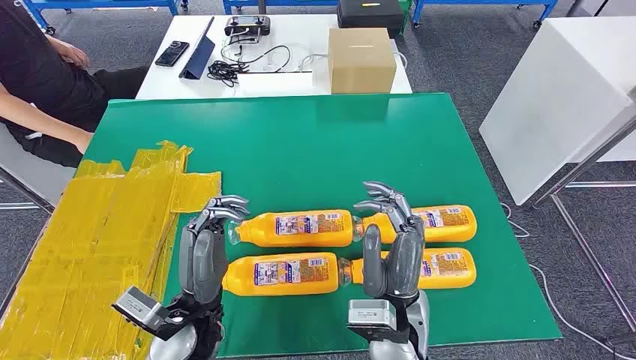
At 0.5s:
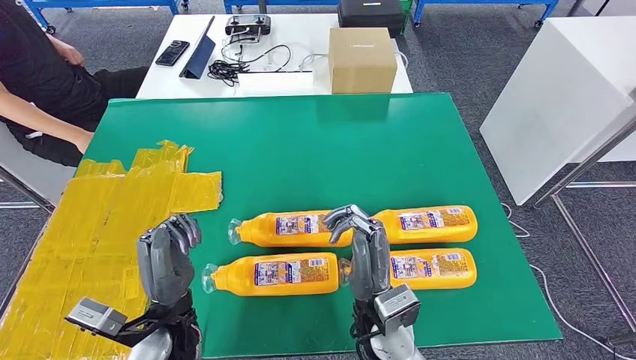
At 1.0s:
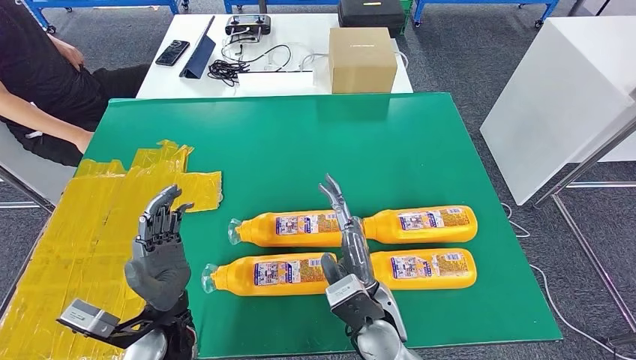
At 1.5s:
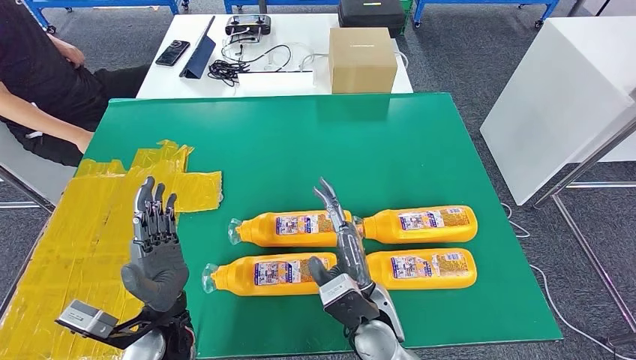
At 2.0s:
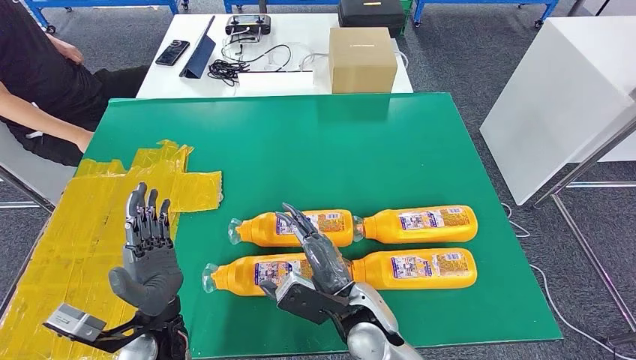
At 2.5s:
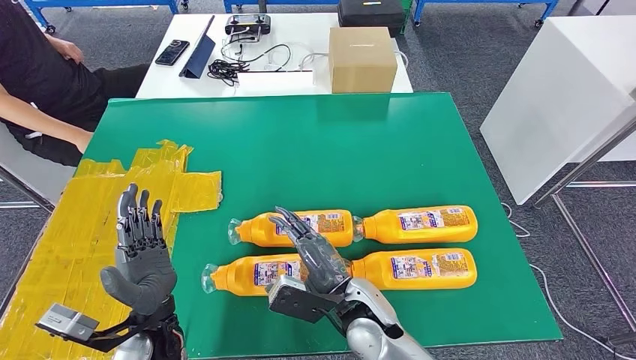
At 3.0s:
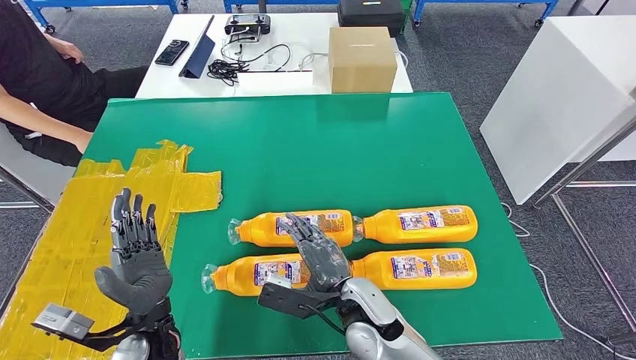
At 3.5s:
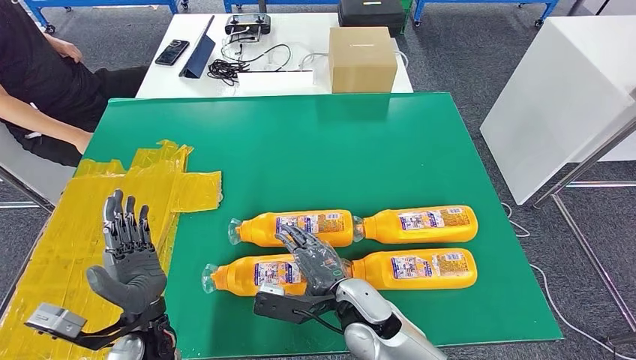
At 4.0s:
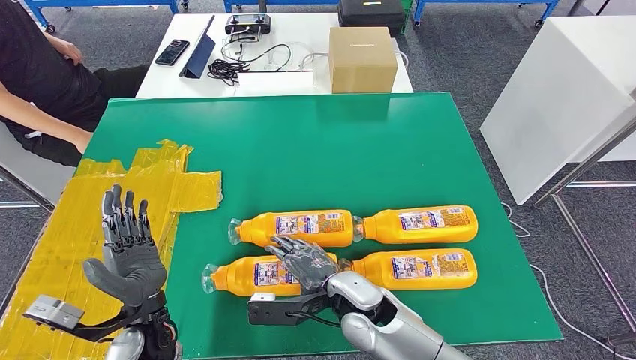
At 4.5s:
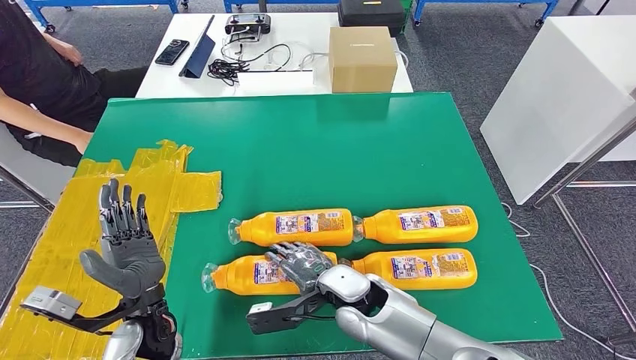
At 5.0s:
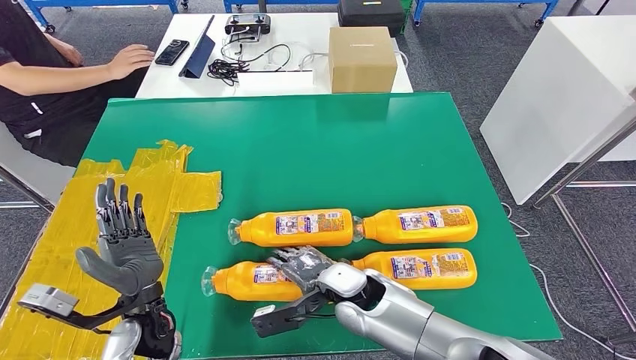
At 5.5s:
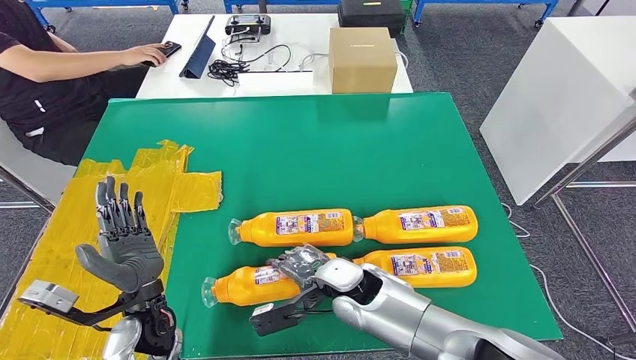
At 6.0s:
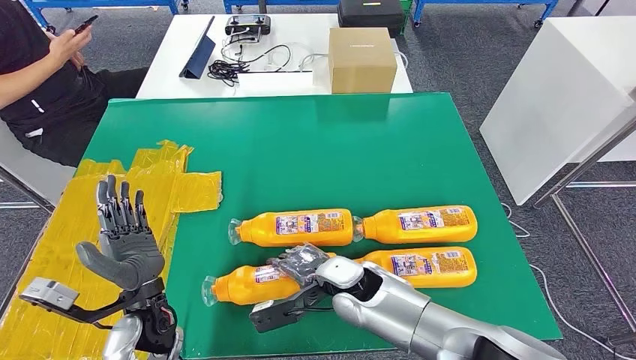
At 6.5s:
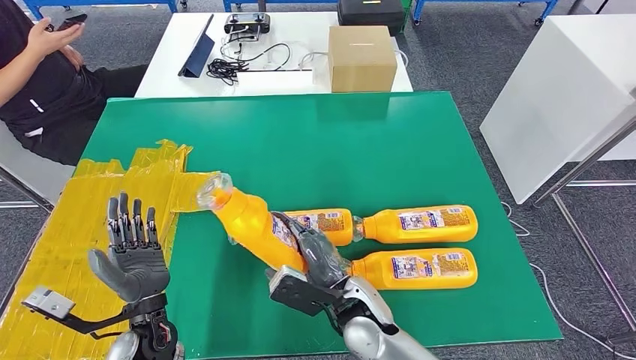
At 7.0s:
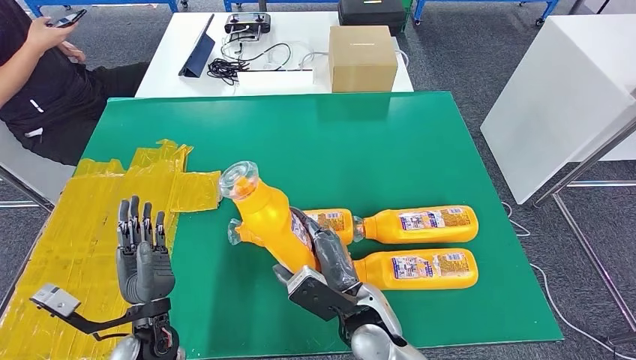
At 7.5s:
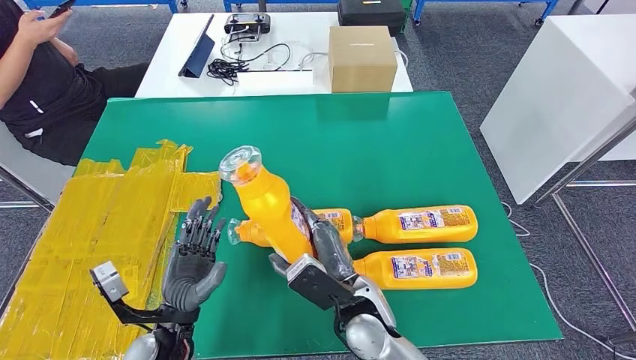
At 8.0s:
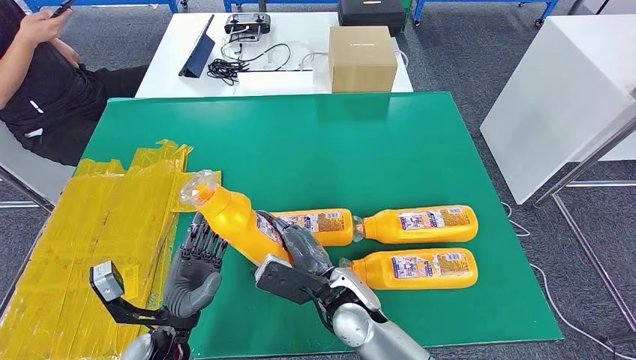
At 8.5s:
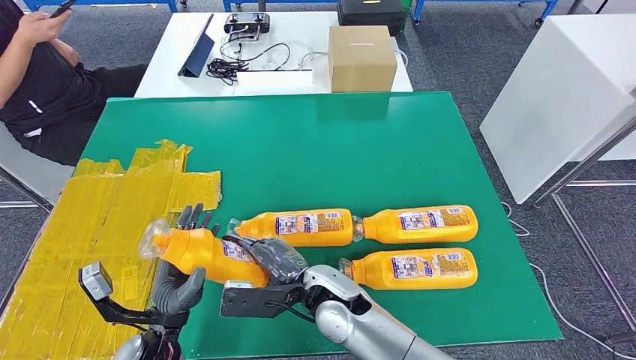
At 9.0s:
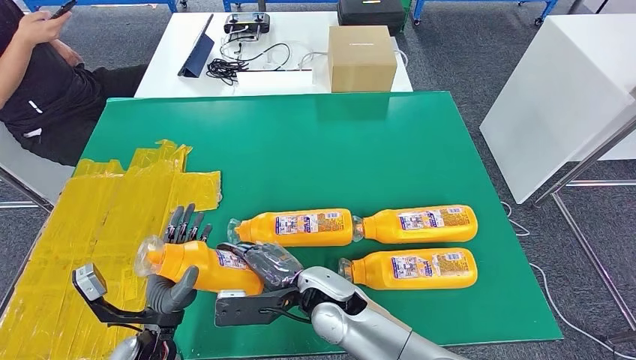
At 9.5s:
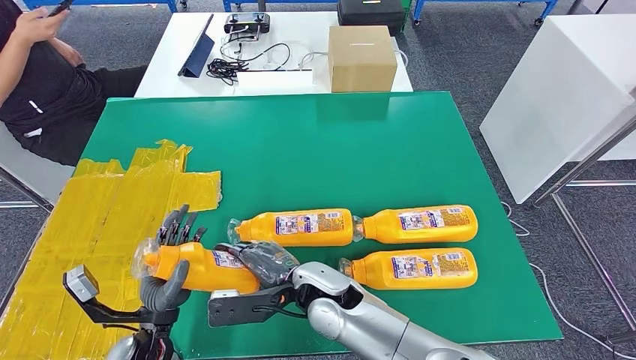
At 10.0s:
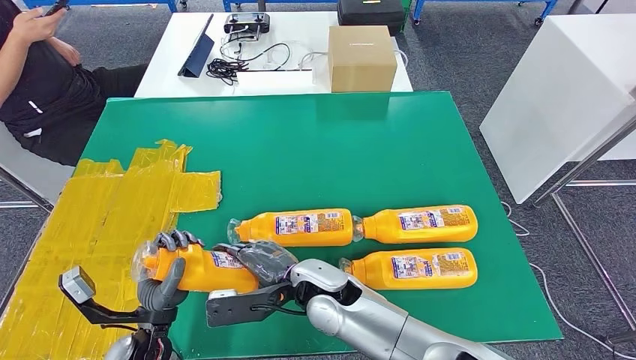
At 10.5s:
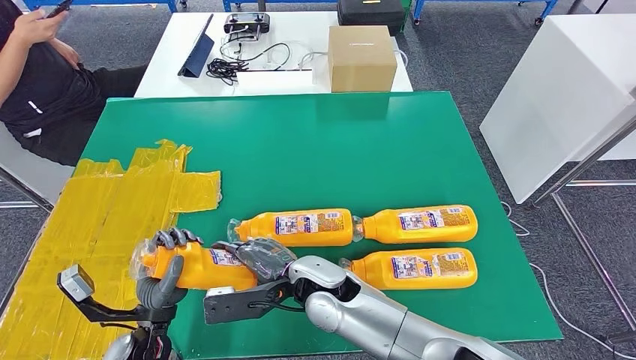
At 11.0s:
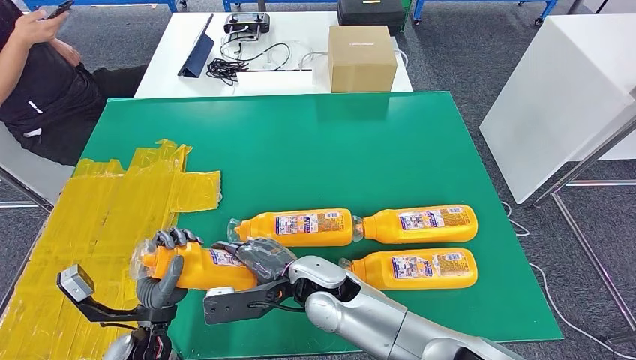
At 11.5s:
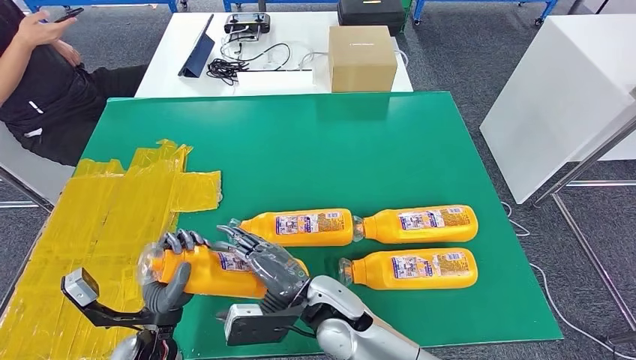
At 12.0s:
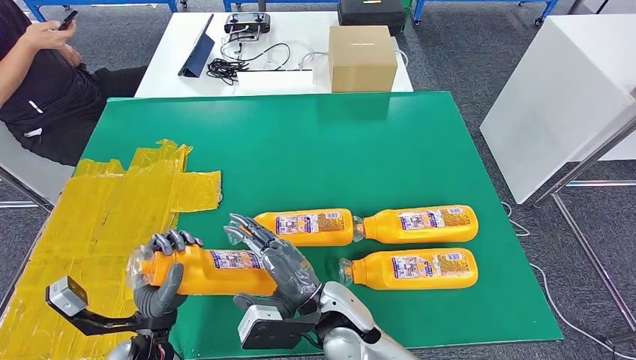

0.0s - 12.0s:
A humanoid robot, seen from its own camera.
Step, 0.0s - 7.0s: Take the fast-moving consumer goods bottle from the table.
8.0s - 10.0s: The right hand travels to the left by approximately 5 cm.
10.0s - 12.0s: The right hand changes place by some 5 cm.

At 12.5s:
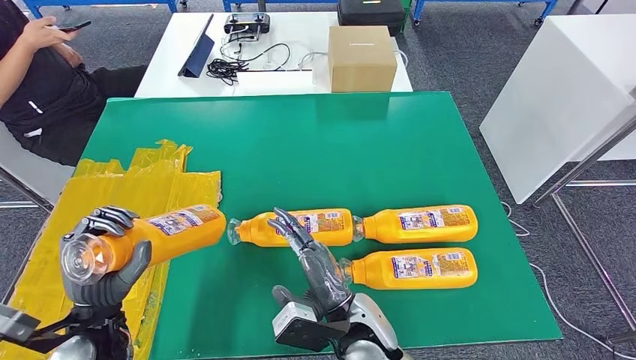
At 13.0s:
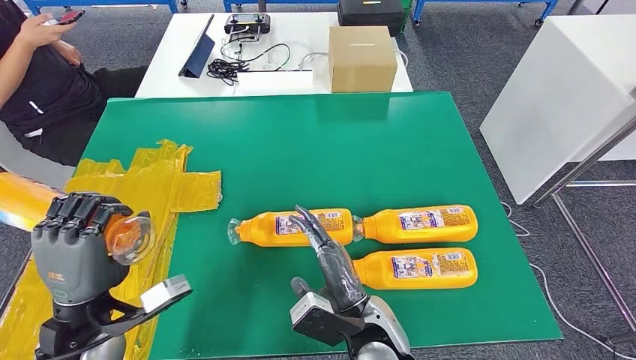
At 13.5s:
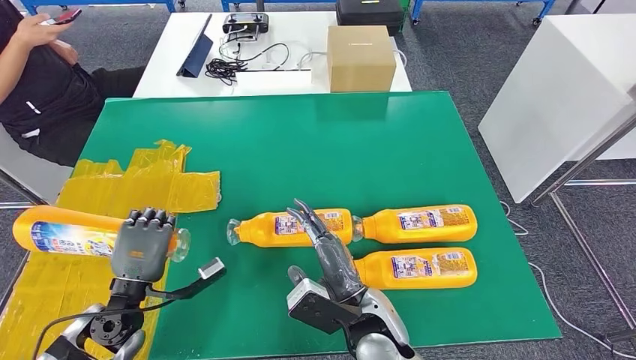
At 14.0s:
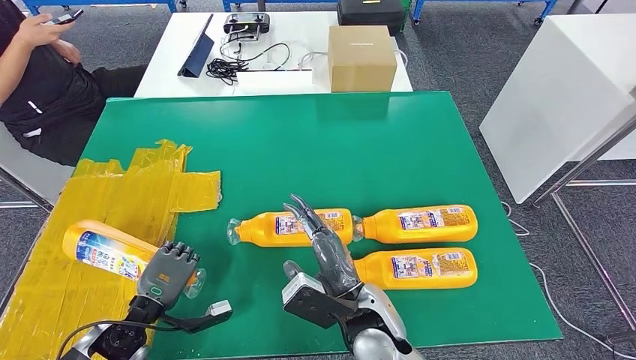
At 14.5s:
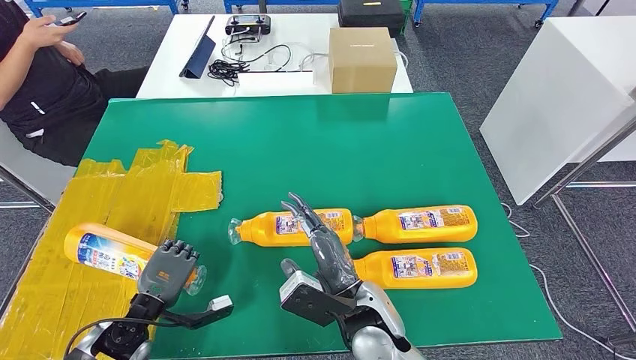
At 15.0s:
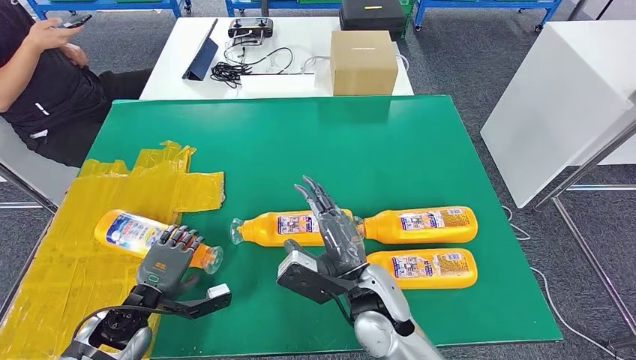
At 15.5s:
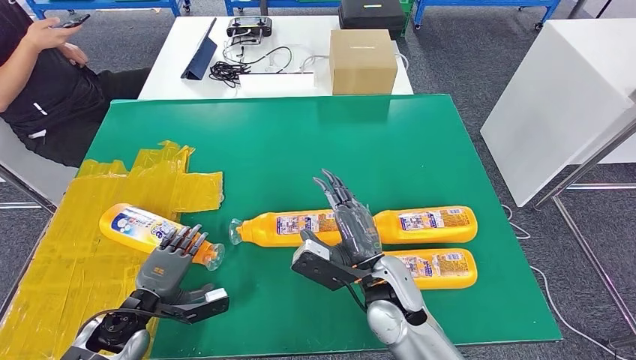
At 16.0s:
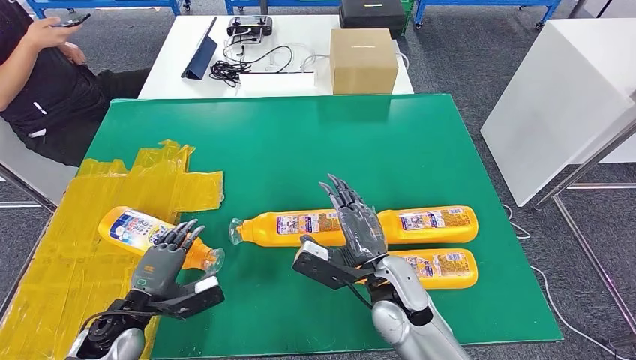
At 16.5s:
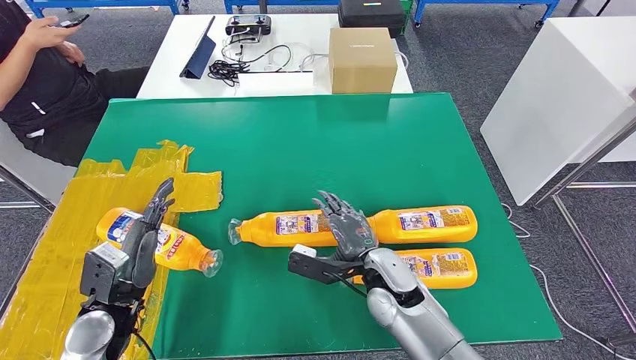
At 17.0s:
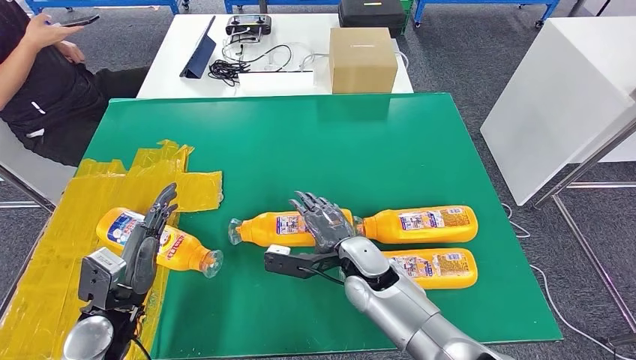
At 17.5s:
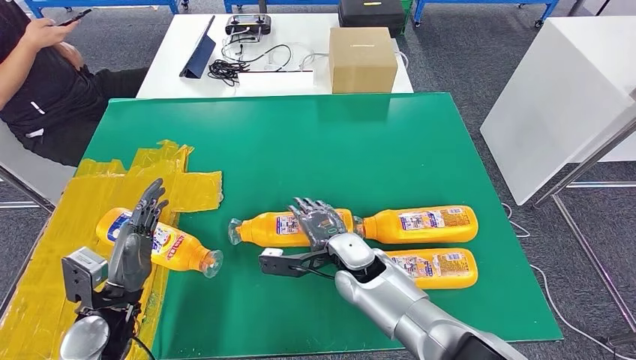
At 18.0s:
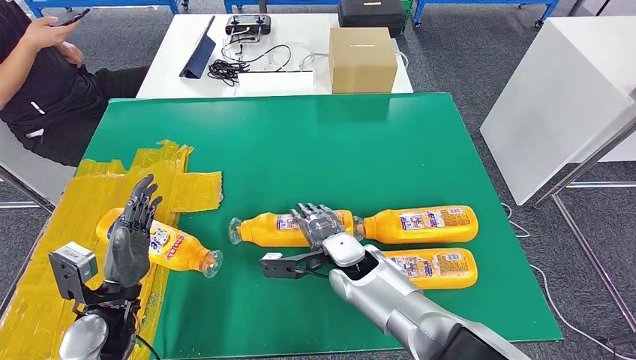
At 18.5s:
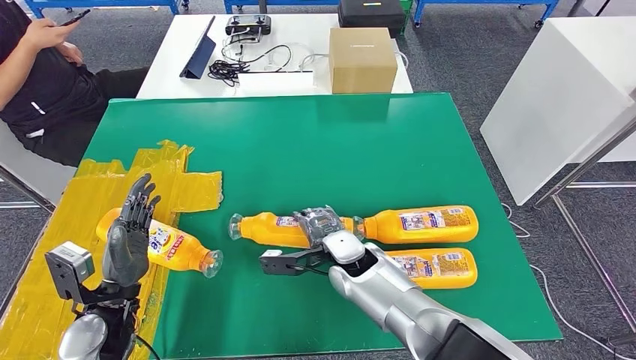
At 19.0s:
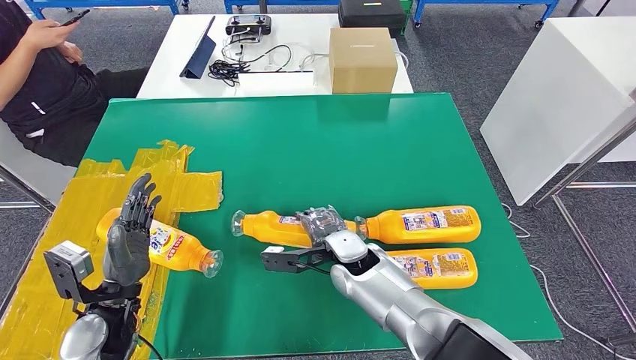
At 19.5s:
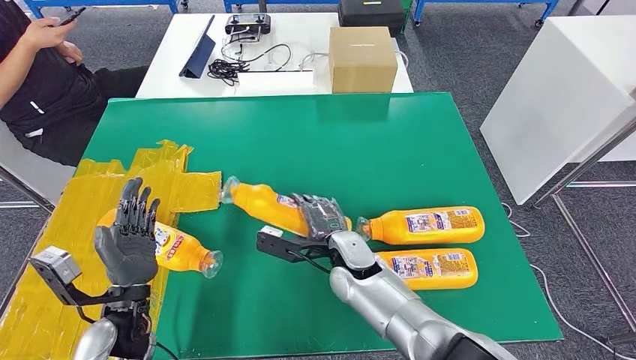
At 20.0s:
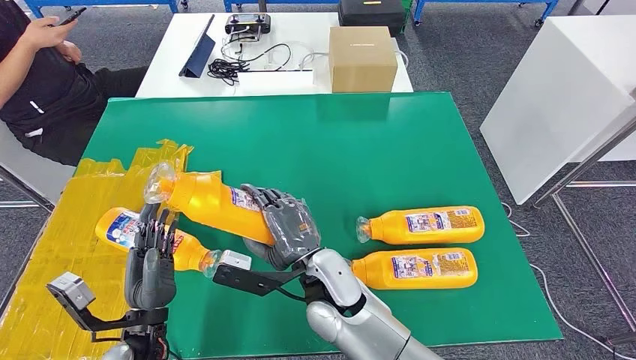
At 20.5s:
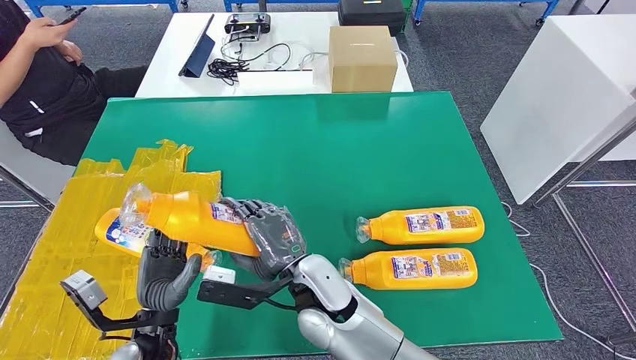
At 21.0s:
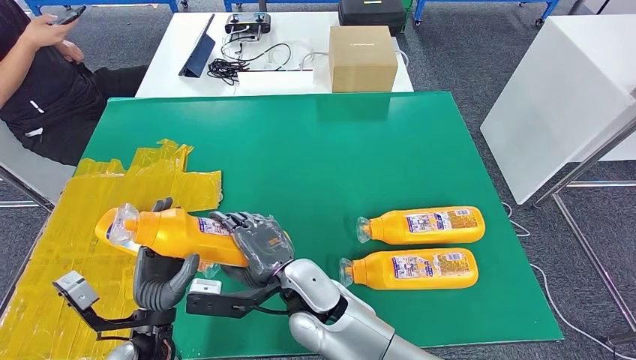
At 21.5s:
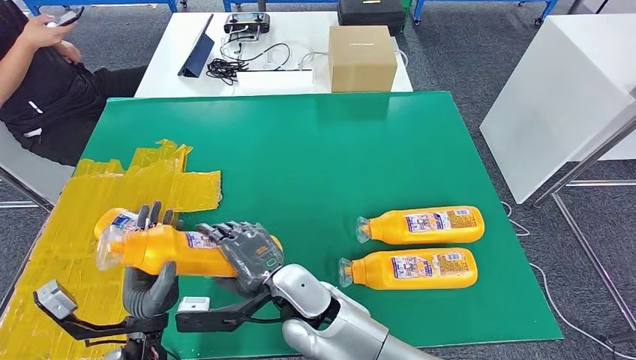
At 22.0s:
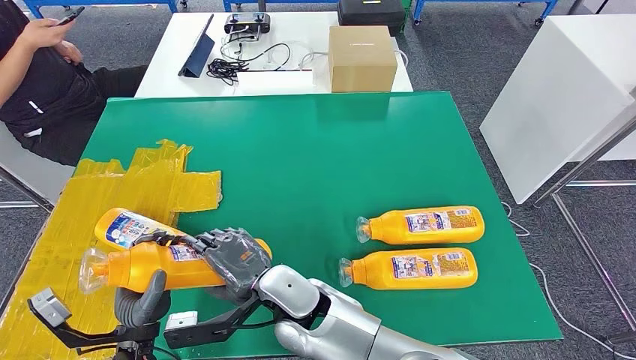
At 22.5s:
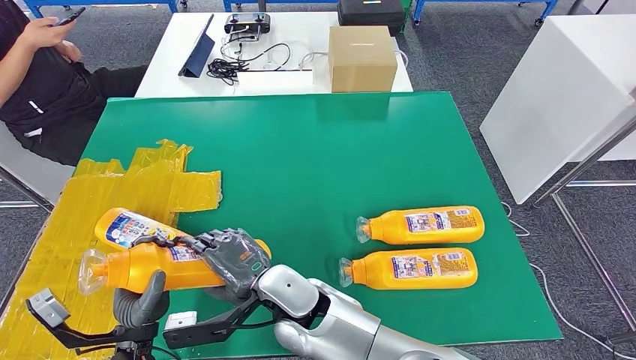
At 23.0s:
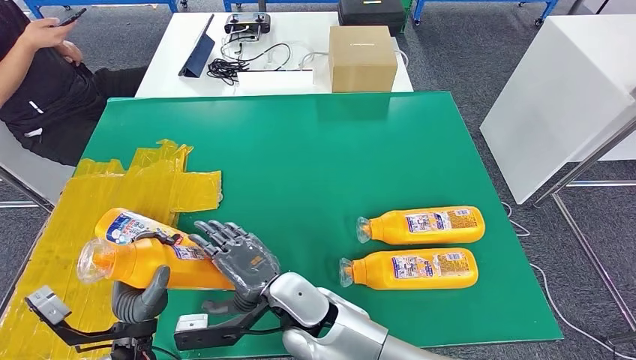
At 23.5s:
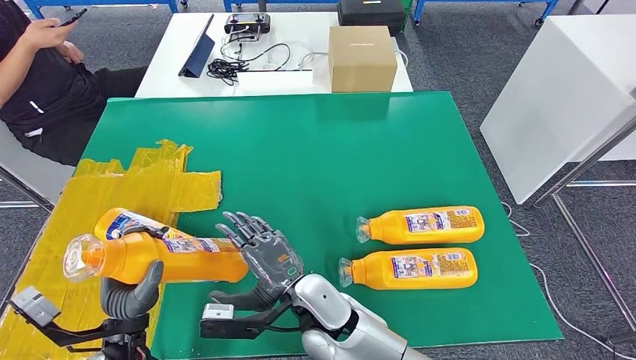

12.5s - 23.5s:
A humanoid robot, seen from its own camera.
Step, 12.5s - 15.0s: Flip the fast-moving consumer goods bottle to the front side.
Step, 15.5s - 21.5s: Pick up the fast-moving consumer goods bottle from the table.
12.5s - 14.5s: The left hand shifts approximately 10 cm downward.
14.5s - 16.0s: The right hand shifts by about 5 cm.
16.0s - 18.0s: The left hand heads upward, covering some 5 cm. The right hand travels to the left and forward by about 10 cm.
18.0s - 20.0s: The left hand heads to the right, covering about 5 cm. The right hand moves backward and upward, approximately 10 cm.
20.0s - 21.5s: The right hand shifts by some 5 cm.
21.5s - 23.5s: The hands make only small movements.
